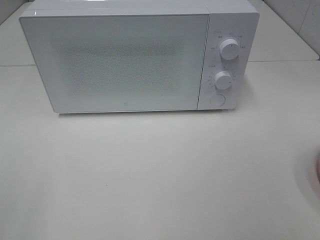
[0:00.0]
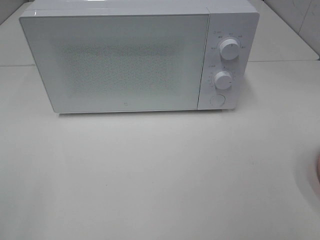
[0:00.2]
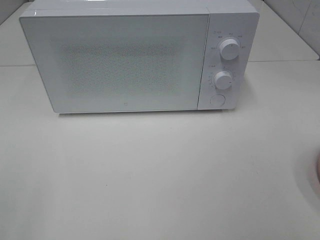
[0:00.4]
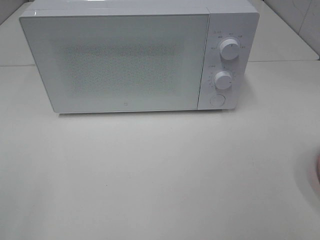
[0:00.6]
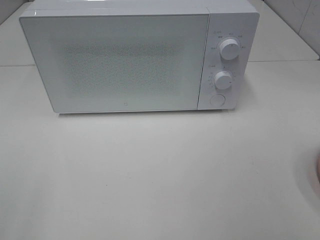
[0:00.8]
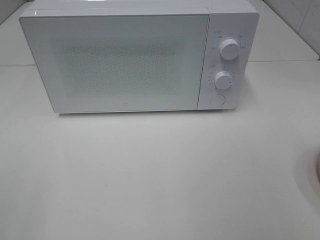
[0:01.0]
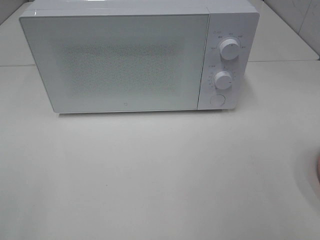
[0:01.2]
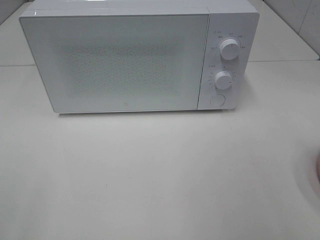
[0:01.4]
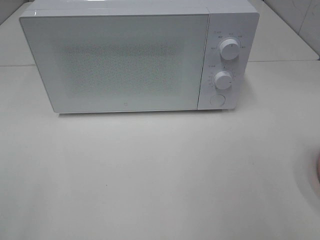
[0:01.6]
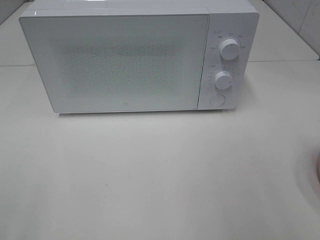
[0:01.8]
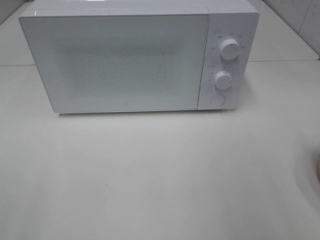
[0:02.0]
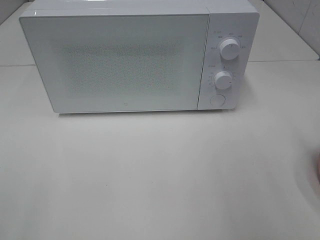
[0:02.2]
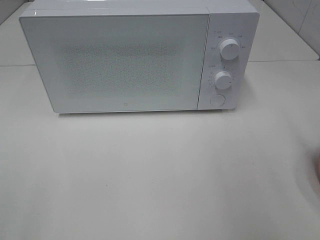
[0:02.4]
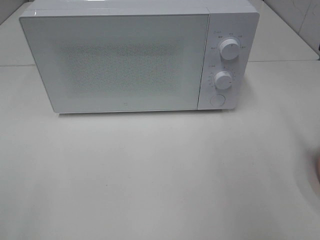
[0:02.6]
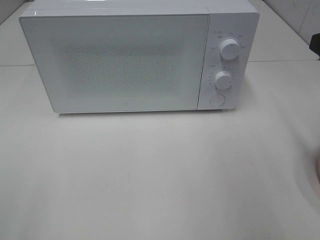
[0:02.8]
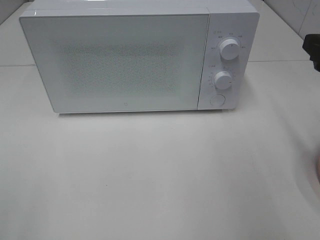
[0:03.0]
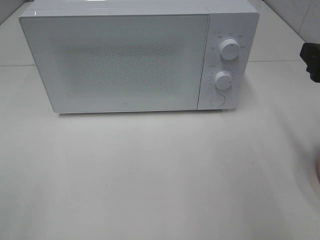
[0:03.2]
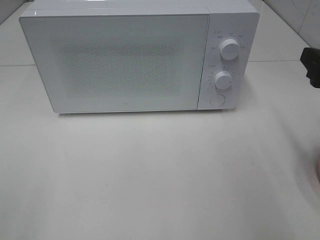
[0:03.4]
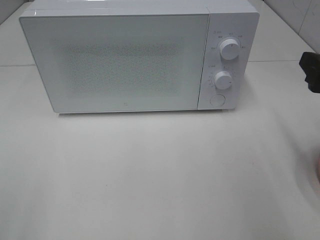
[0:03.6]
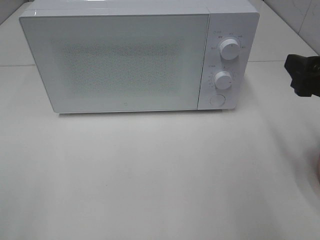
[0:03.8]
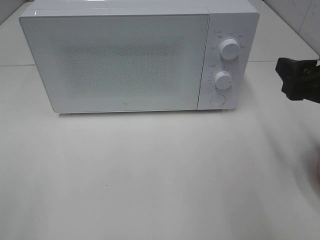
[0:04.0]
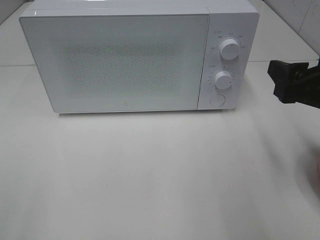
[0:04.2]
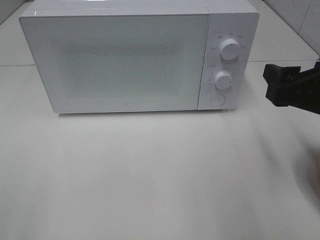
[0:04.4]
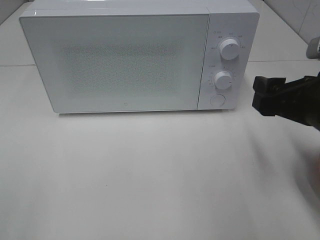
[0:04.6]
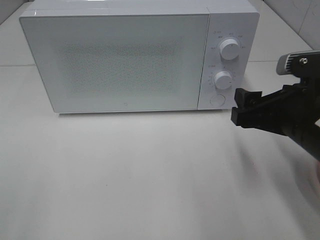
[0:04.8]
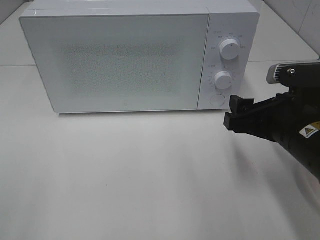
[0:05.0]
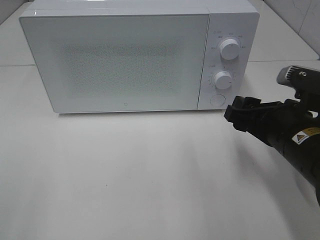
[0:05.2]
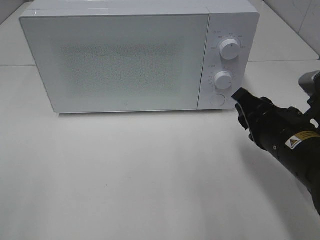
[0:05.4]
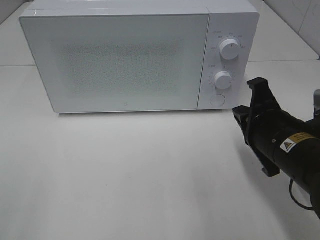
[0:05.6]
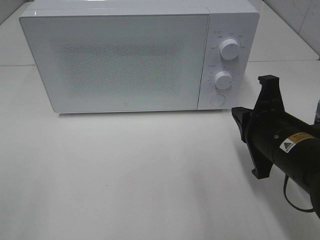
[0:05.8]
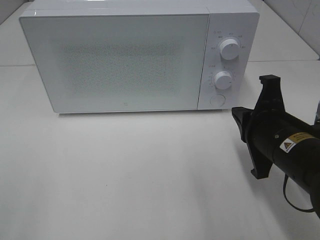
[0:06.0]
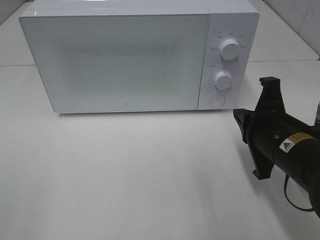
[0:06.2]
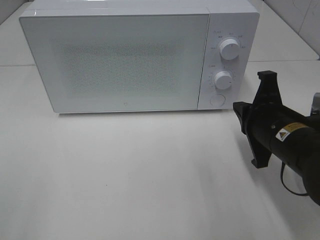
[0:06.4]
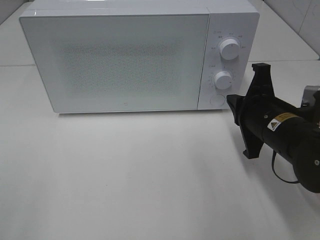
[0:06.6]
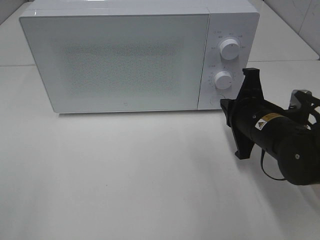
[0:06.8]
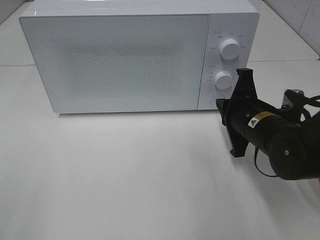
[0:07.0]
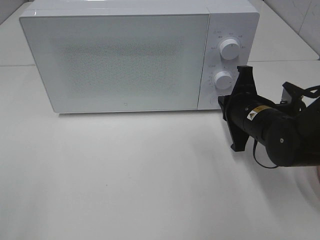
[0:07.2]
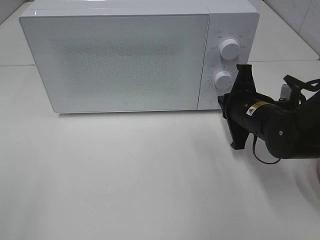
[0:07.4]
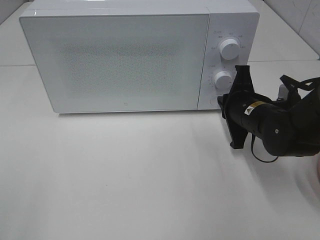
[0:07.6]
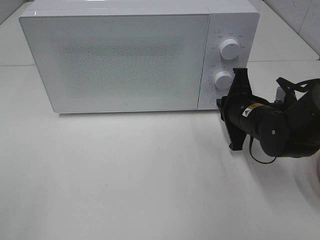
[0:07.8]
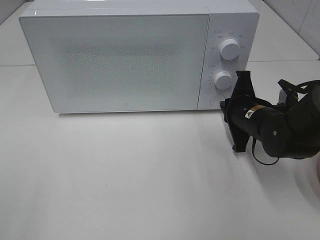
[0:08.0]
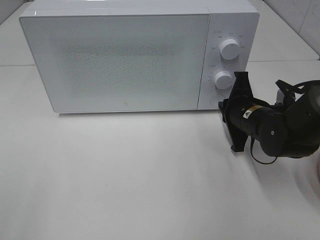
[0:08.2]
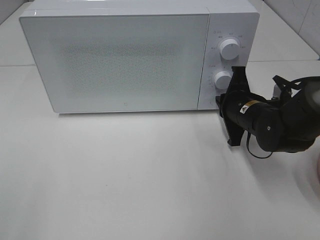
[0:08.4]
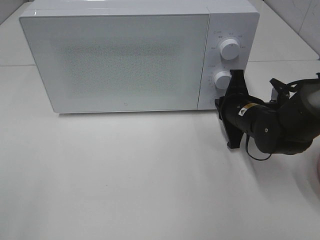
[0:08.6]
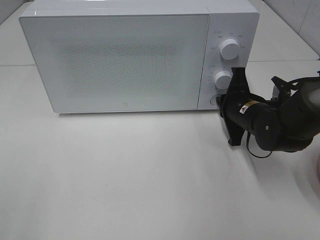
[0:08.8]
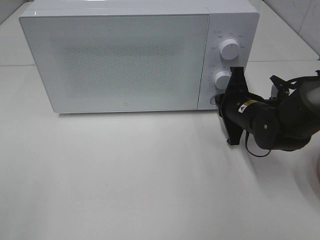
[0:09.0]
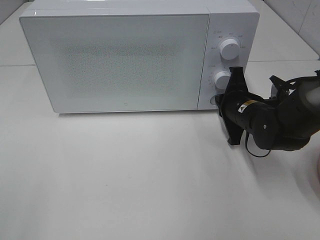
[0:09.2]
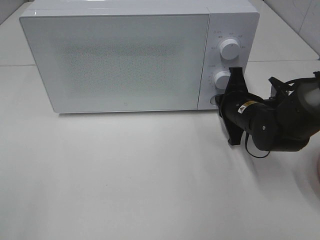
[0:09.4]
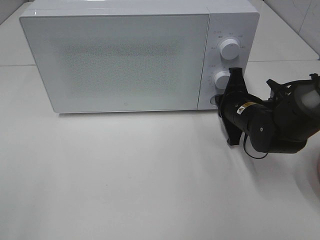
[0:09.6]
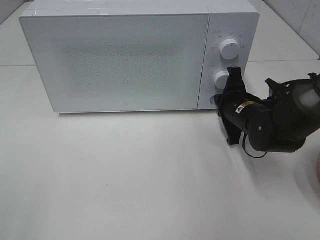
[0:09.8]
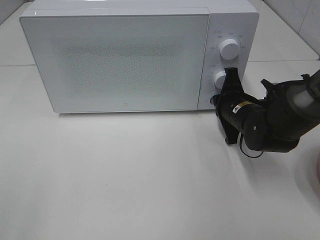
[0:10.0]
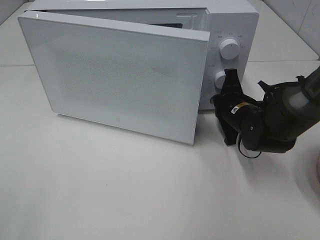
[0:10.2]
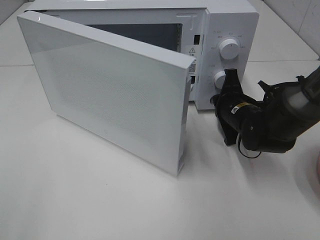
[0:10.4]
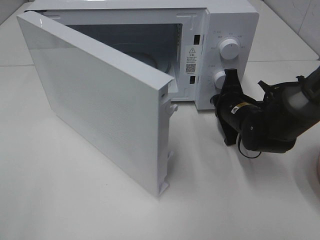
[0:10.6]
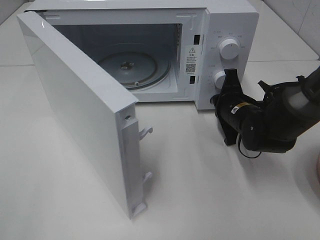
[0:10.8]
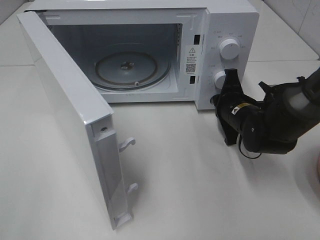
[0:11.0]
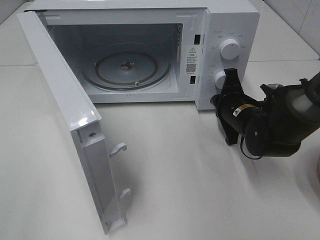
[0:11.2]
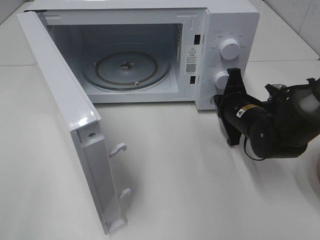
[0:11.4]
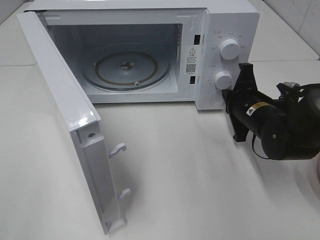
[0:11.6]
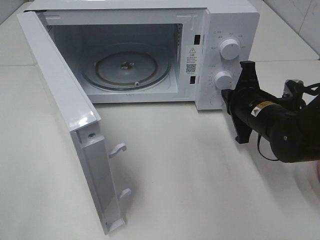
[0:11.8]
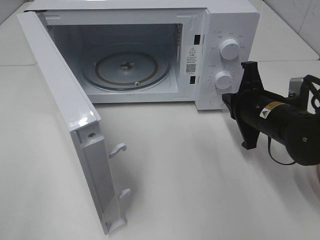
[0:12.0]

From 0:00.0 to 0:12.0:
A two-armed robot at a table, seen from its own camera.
Task of the whole recording: Heat the burger.
Step, from 0:00.0 to 0:11.4: Right hand: press the switch.
From 0:01.6 to 0:03.0: The right gripper moves forward, some 15 cm.
From 0:03.0 to 0:04.4: The right gripper goes some 5 cm to the left.
From 0:04.4 to 0:06.0: The right gripper goes approximately 10 cm downward and to the left, and closes up.
From 0:06.0 to 0:07.6: The right gripper goes about 10 cm forward.
From 0:07.6 to 0:10.4: The grippers move only a little.
From 0:10.4 to 0:12.0: The right gripper heads backward, covering roughly 5 cm.

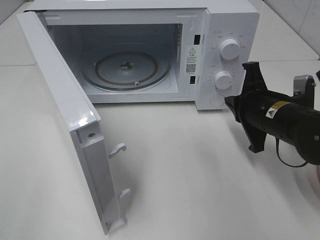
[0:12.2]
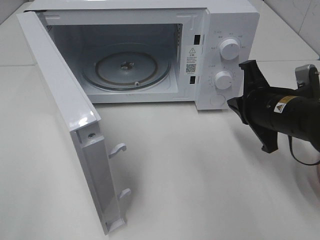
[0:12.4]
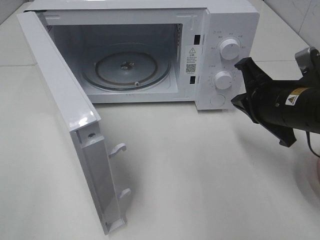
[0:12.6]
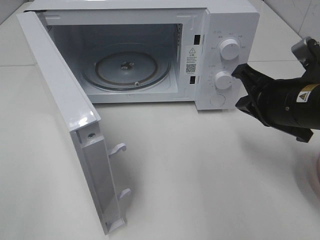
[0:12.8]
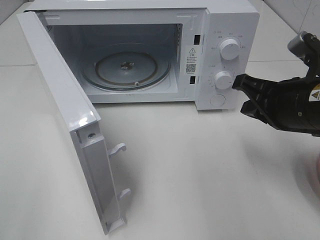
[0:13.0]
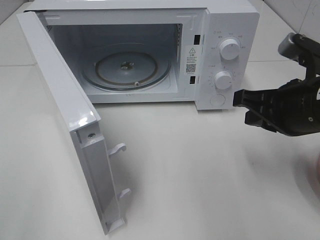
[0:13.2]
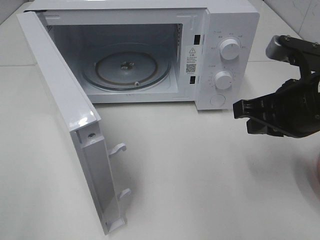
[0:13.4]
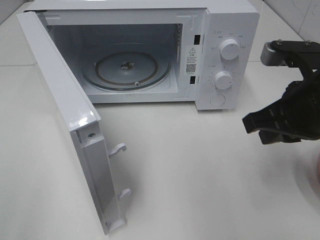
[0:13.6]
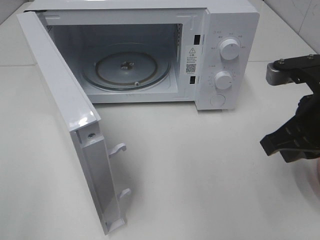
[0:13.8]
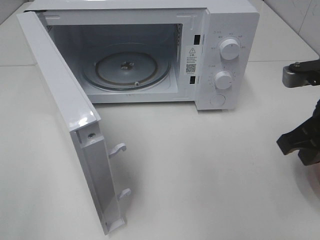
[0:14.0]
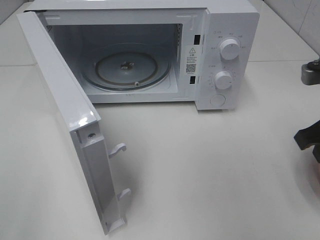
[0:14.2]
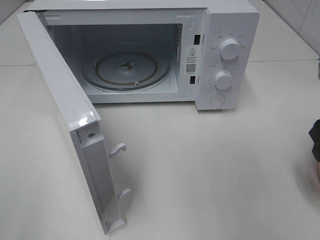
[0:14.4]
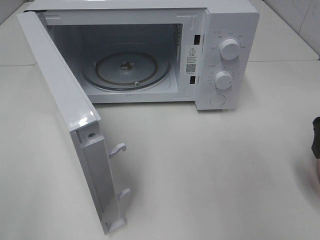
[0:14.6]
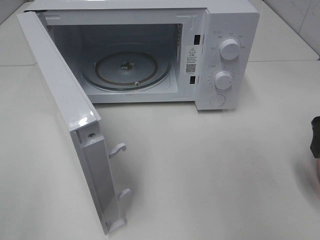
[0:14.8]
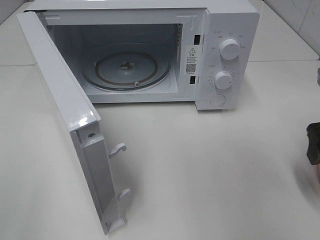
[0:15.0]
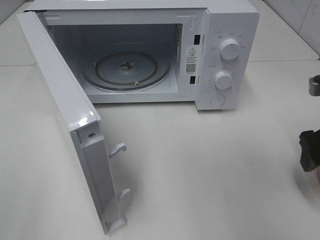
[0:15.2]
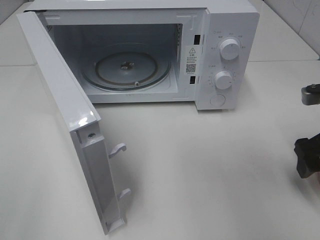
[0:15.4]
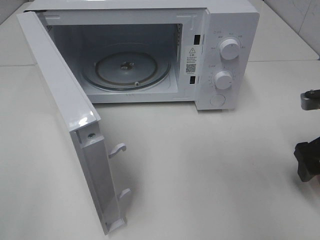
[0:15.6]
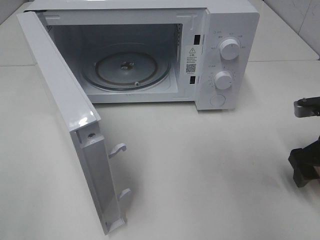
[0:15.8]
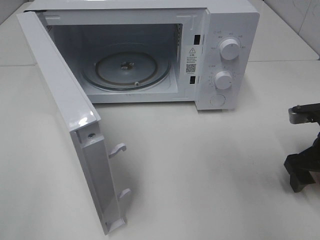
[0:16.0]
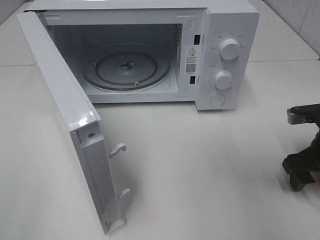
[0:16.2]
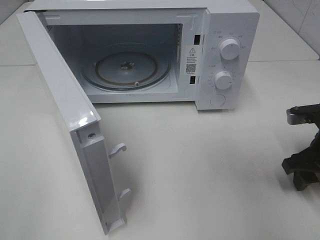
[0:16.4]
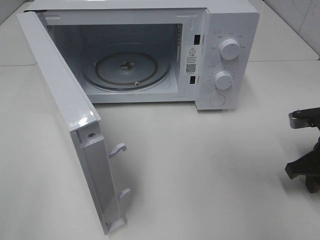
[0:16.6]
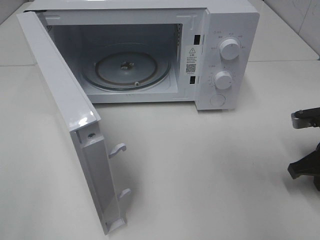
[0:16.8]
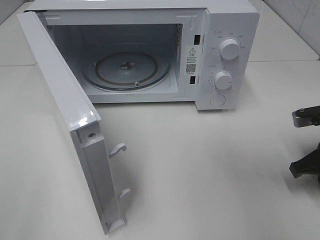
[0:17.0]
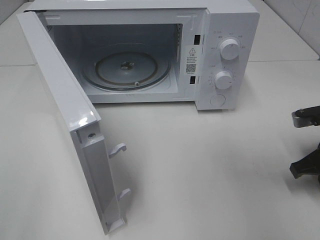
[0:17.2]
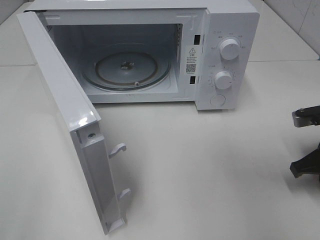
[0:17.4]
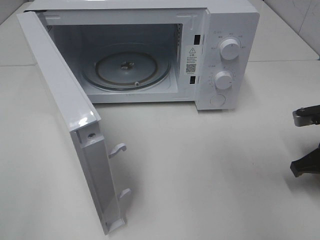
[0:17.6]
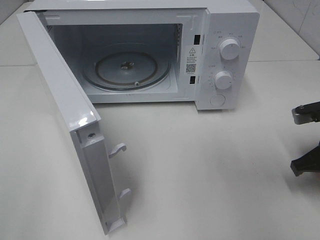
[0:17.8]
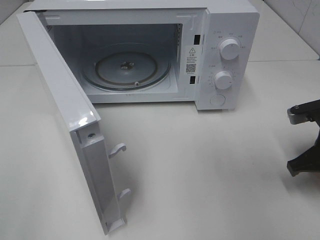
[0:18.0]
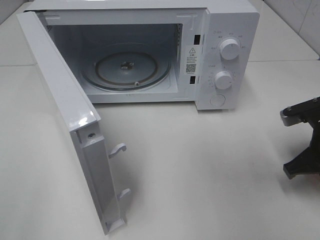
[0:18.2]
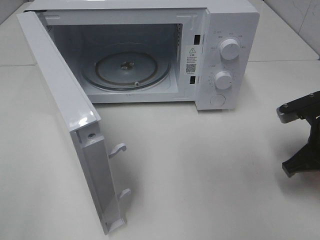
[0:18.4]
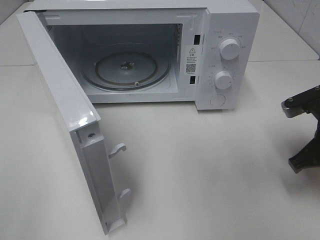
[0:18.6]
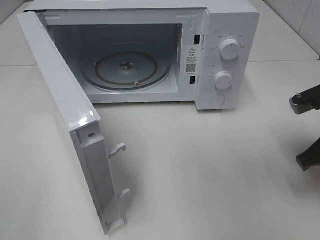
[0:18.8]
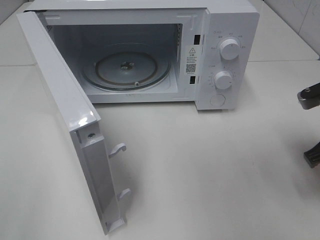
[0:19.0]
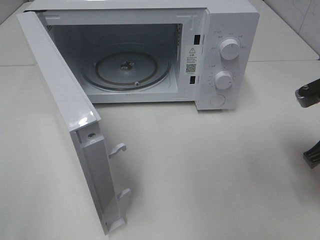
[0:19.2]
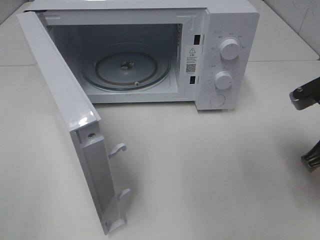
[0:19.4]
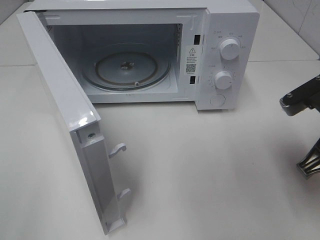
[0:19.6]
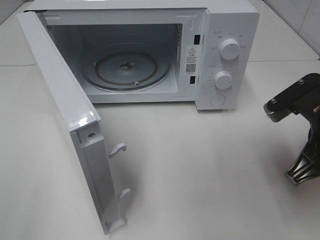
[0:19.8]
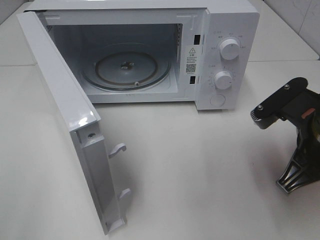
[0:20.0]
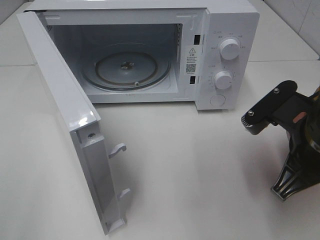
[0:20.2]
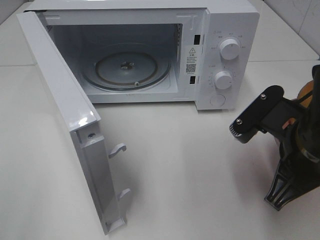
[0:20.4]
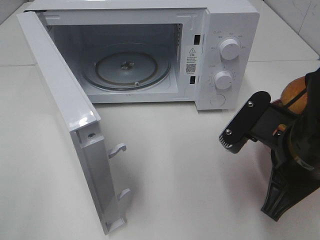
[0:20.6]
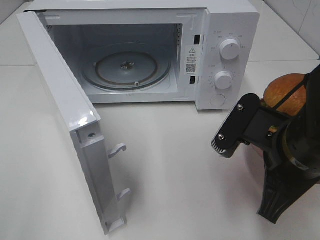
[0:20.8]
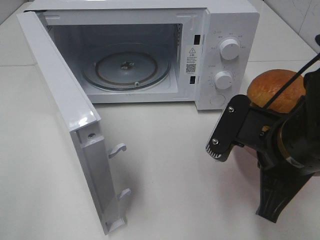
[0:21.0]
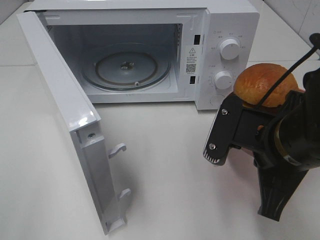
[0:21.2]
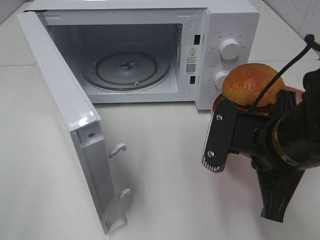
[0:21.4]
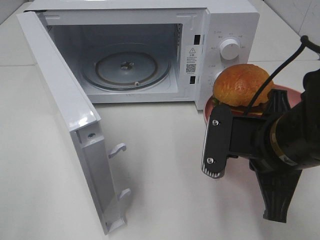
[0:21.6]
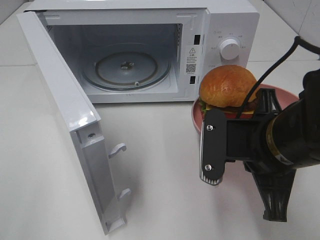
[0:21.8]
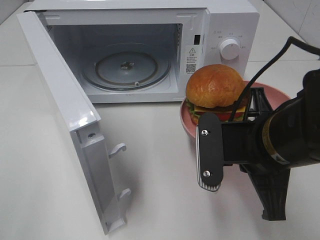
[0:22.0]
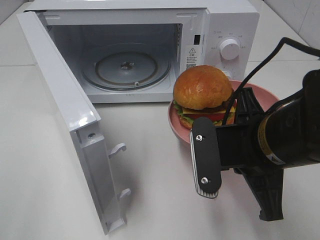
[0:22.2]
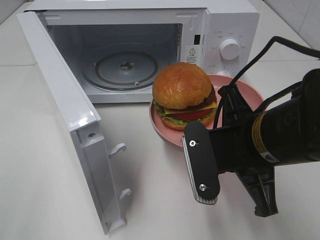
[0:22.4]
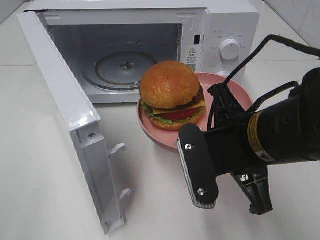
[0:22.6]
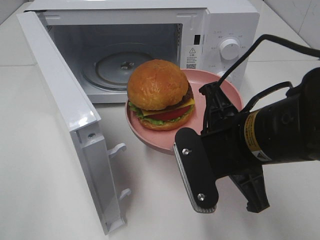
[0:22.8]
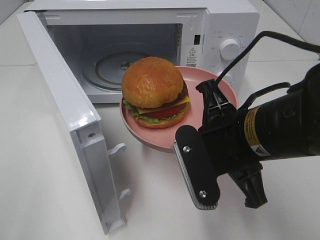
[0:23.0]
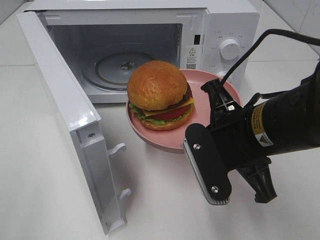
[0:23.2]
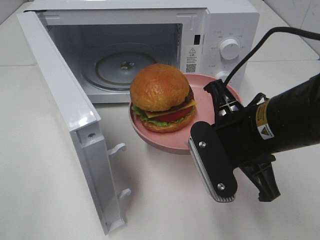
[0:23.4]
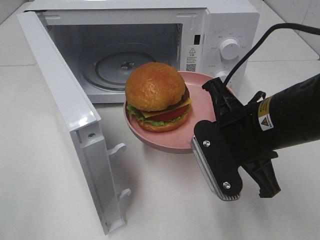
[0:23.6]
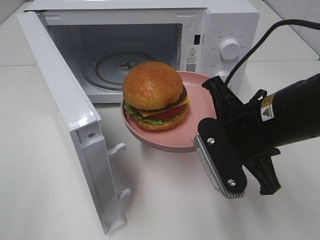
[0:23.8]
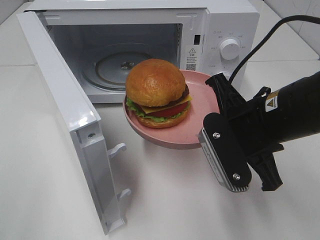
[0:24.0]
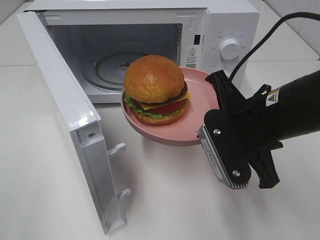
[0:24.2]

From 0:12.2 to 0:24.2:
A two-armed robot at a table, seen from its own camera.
Task of the whole recording: Heat the burger.
Step, from 0:12.2 to 0:17.0: Right hand: grab the plate with the hamburger.
From 0:12.2 to 0:13.8: The right gripper goes roughly 10 cm upward and backward.
From 0:13.8 to 0:15.2: The right gripper heads to the right, covering some 10 cm, and opens up.
From 0:15.2 to 0:16.6: The right gripper travels downward by roughly 5 cm, and closes its fingers.
From 0:16.6 to 0:18.2: The right gripper closes its fingers.
From 0:18.2 to 0:19.8: The right gripper is displaced upward and to the left by about 10 cm.
From 0:19.8 to 0:21.2: The right gripper is displaced to the left by roughly 5 cm.
From 0:22.6 to 0:24.2: The right gripper shifts by approximately 5 cm.
